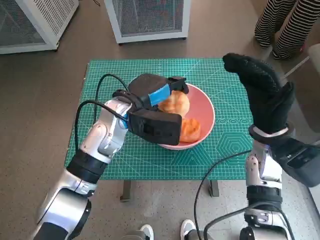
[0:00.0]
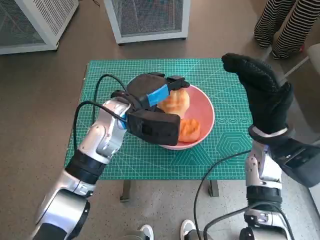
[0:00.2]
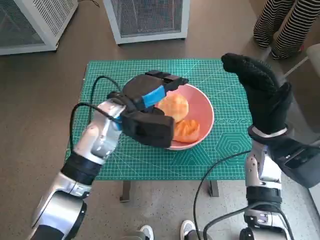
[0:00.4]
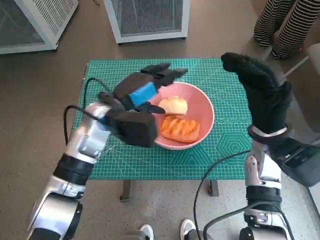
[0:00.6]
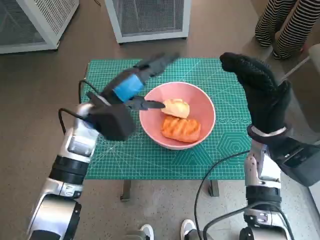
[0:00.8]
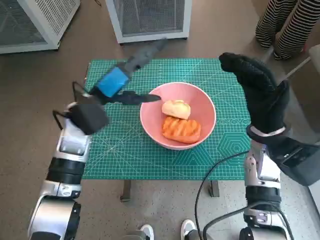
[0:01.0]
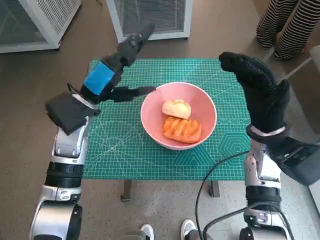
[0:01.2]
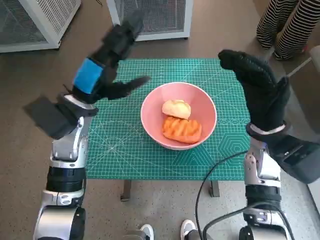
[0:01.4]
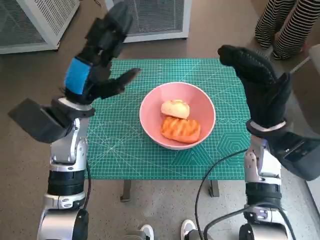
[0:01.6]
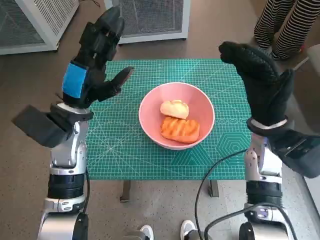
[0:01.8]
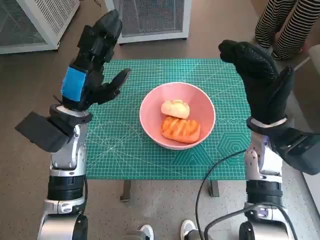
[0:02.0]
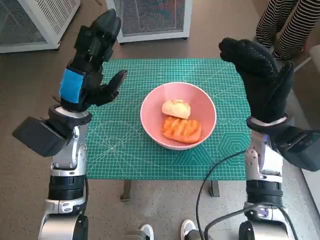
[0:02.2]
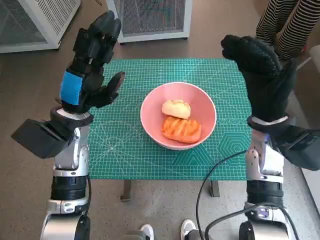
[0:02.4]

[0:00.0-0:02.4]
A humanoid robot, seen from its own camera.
Task of the whole recording: Push the bowl into the center of the table and put the bread into the bowl.
0:00.0 to 0:01.2: The left hand moves to the left, some 10 cm.

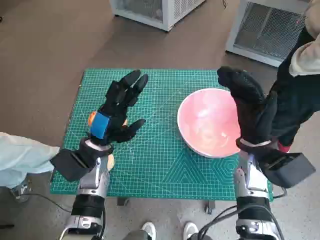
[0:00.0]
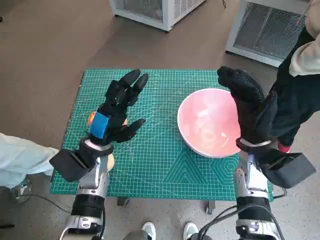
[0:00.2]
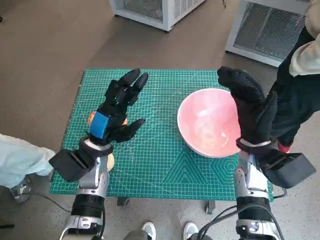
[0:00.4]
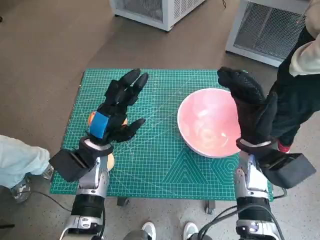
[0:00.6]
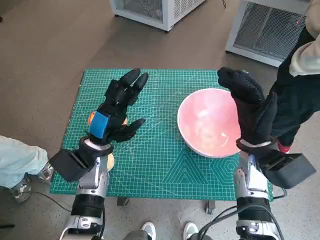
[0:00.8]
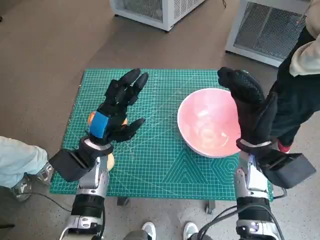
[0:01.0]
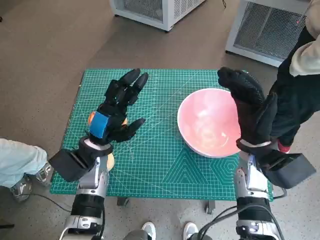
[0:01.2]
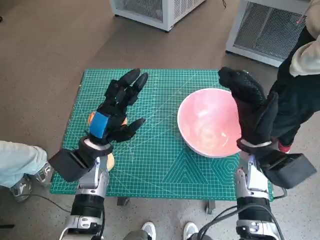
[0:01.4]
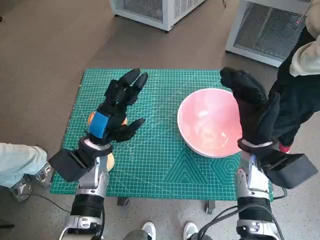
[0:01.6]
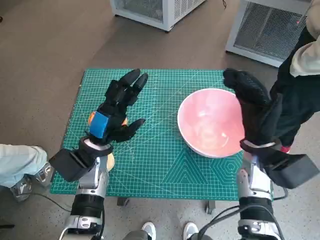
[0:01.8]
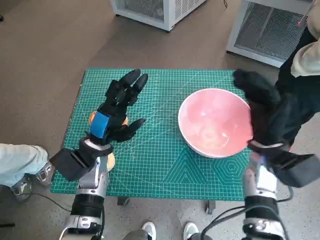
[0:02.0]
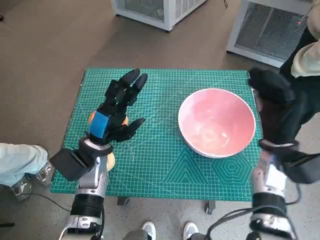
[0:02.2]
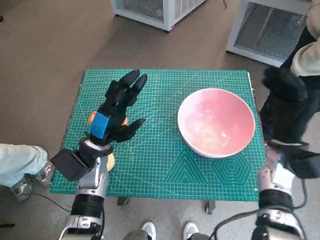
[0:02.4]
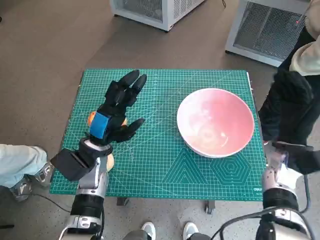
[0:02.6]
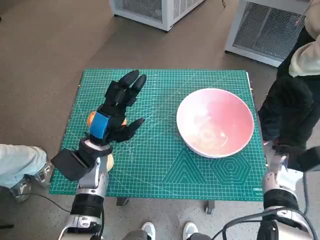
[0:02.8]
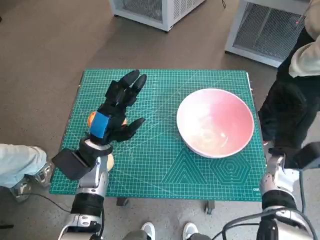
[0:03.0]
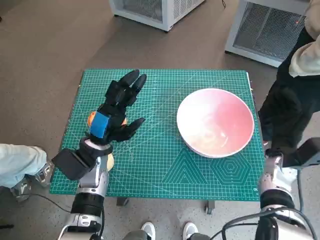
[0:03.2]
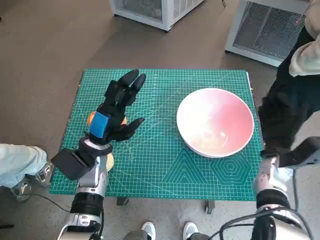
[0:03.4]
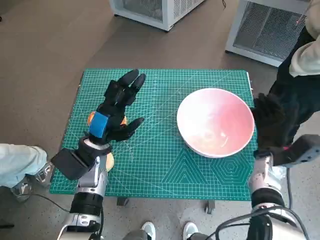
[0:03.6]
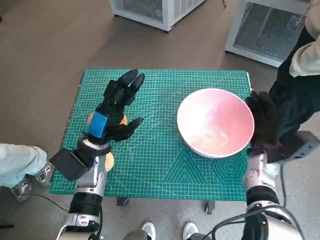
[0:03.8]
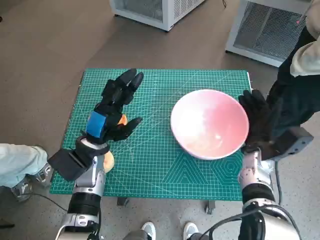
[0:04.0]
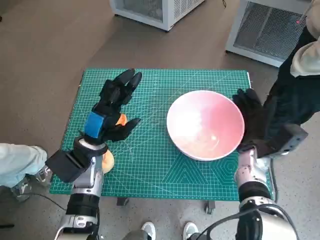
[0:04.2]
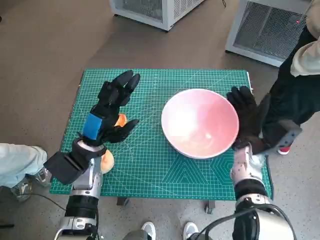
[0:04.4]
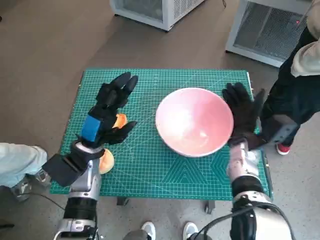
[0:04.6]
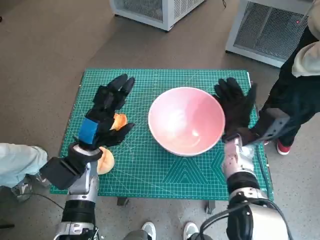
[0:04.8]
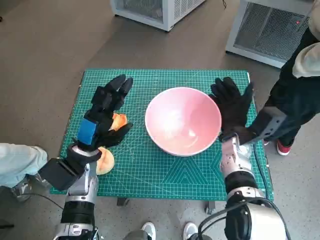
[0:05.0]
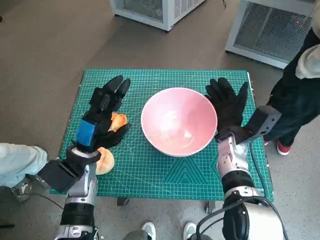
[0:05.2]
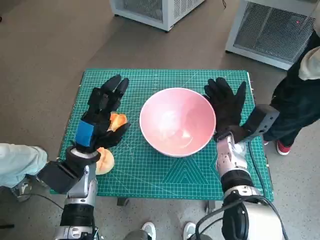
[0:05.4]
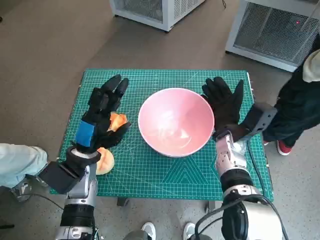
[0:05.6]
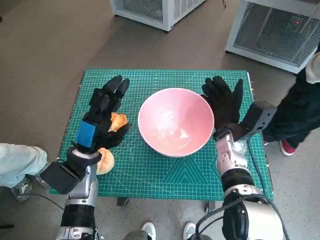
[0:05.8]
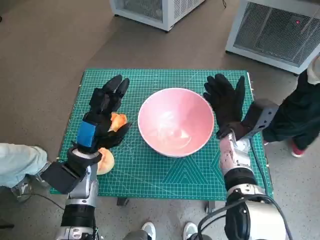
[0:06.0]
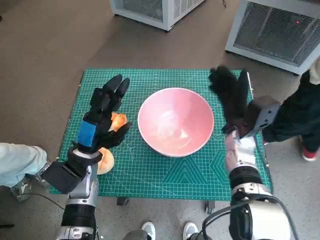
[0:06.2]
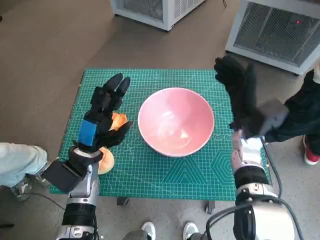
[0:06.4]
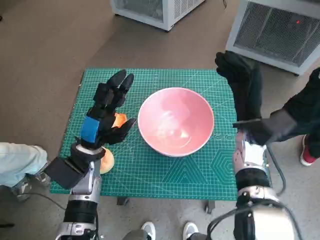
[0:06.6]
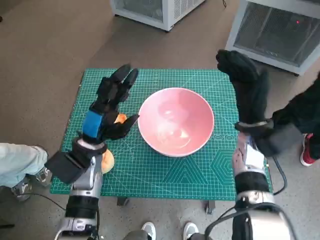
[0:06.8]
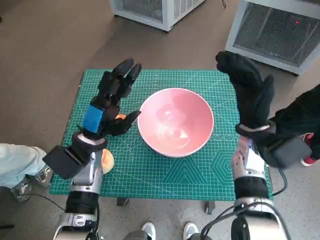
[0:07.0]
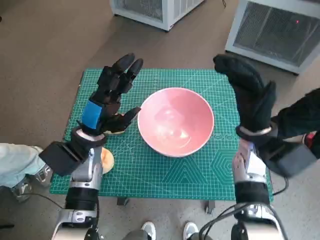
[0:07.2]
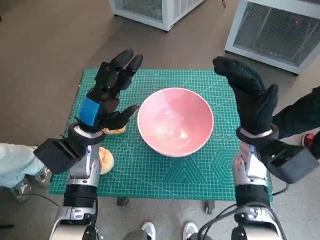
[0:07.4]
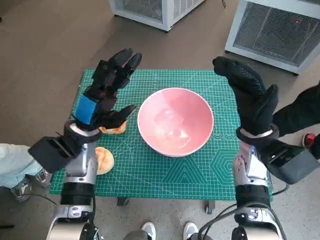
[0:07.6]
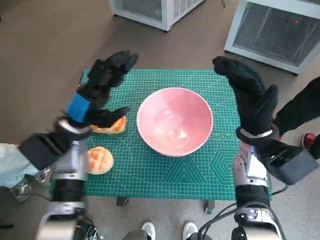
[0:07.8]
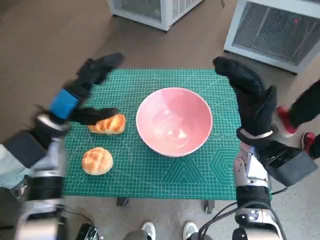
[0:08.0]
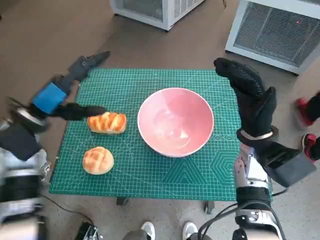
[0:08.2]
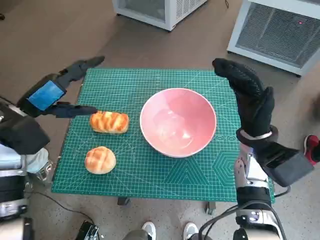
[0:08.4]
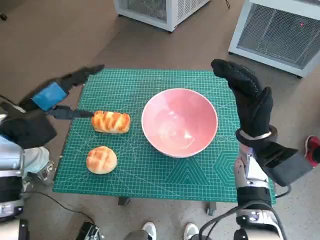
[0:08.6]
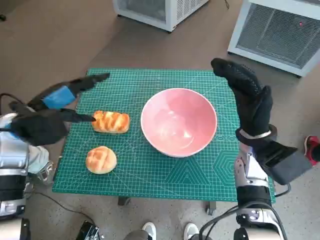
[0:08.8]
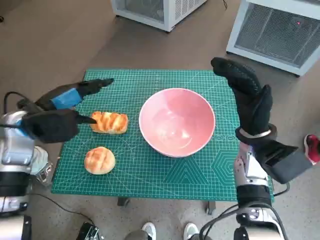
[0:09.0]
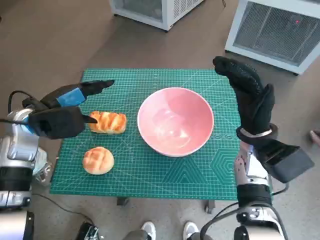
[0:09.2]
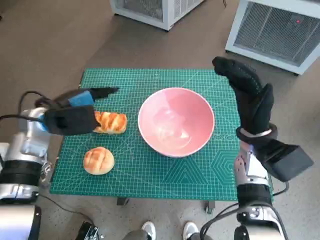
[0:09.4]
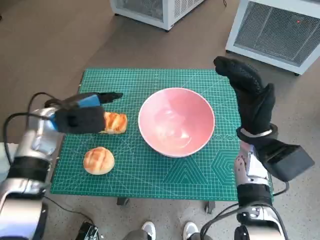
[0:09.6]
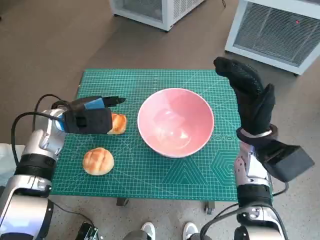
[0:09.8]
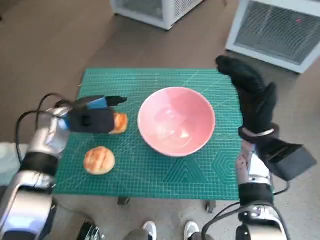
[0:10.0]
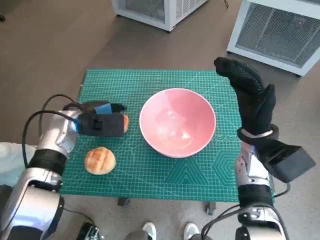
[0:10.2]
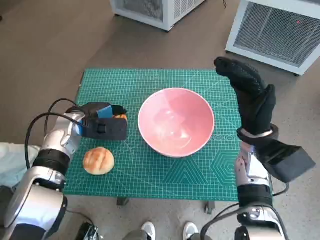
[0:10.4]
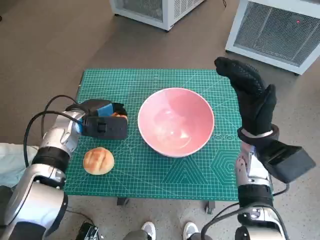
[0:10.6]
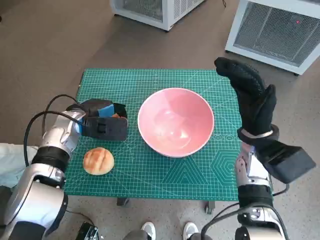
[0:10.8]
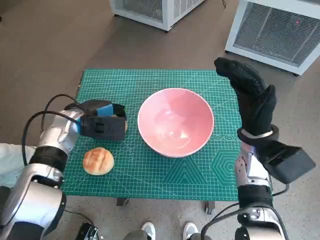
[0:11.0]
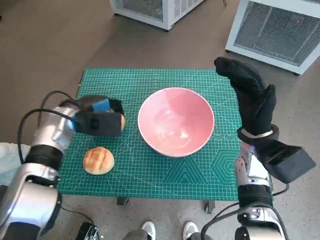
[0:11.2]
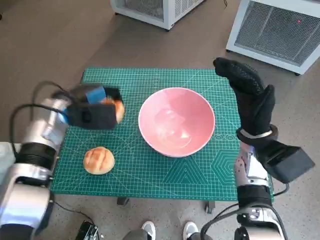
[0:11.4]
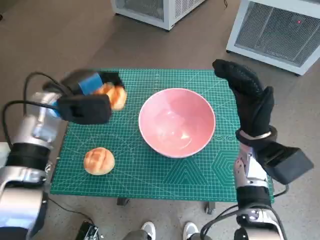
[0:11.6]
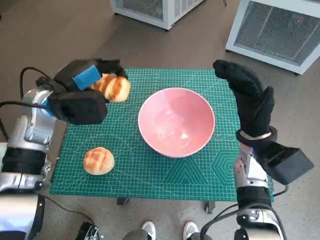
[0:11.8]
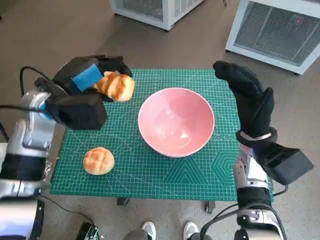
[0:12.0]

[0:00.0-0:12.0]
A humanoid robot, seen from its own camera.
Task of the whole recording: Push the bowl into the center of the table and put the bread into the bowl.
Step, 0:00.0 to 0:06.0: Move the pink bowl to the center of table with right hand.
Step, 0:06.2 to 0:10.4: Grasp the long bread with left hand.
0:01.6 to 0:03.0: The right hand moves to the right and downward, some 10 cm.
0:03.0 to 0:04.4: The right hand shifts about 5 cm to the left.
0:04.4 to 0:06.0: The right hand moves about 5 cm.
0:06.0 to 0:07.6: The right hand travels upward by roughly 5 cm; the left hand shifts by roughly 5 cm.
0:07.6 to 0:09.0: The left hand heads to the left and upward, covering approximately 10 cm.
0:09.0 to 0:10.4: The left hand is displaced downward and to the right by some 10 cm.
0:10.4 to 0:12.0: The left hand goes about 10 cm upward.

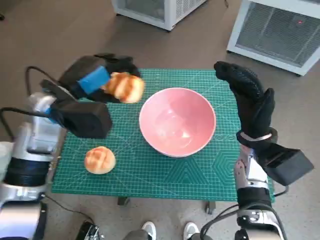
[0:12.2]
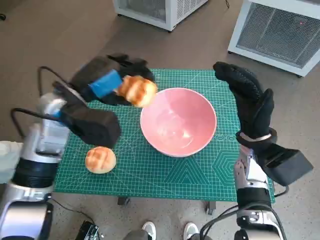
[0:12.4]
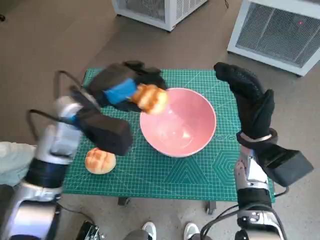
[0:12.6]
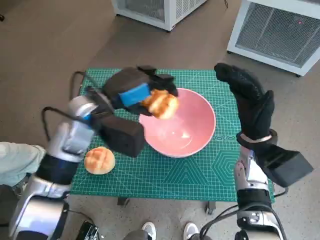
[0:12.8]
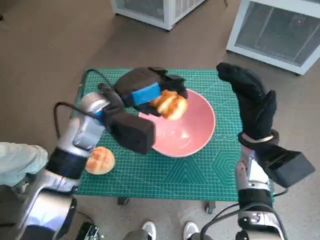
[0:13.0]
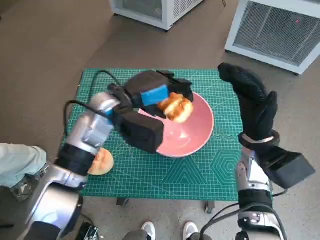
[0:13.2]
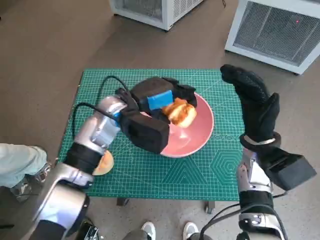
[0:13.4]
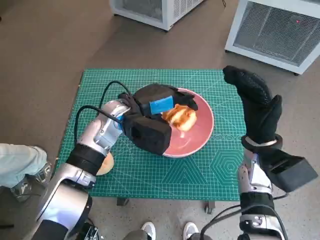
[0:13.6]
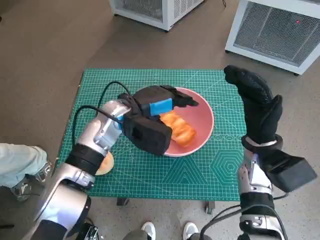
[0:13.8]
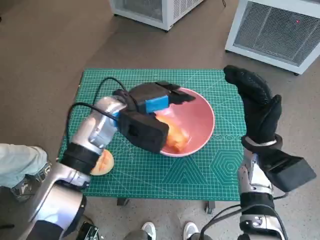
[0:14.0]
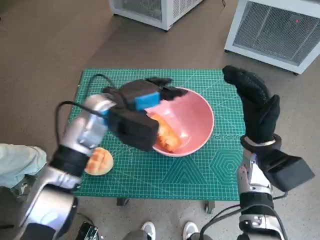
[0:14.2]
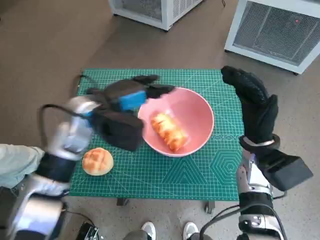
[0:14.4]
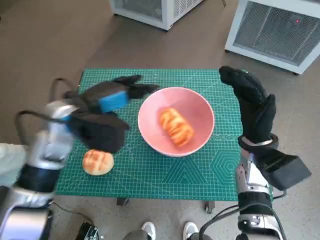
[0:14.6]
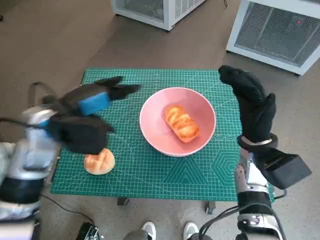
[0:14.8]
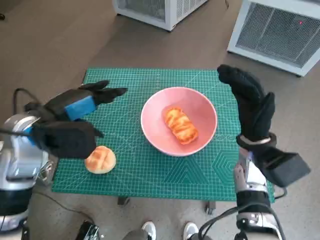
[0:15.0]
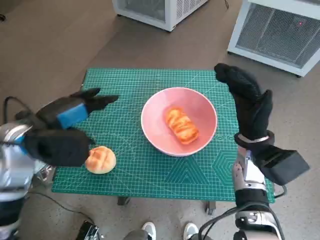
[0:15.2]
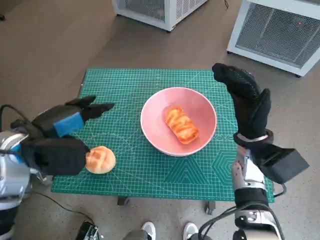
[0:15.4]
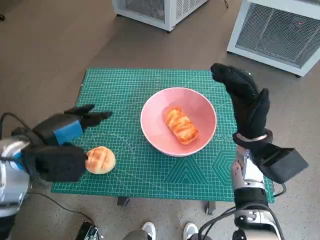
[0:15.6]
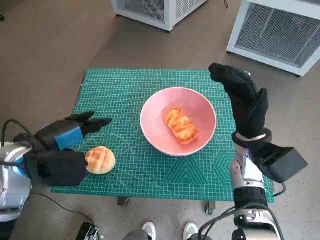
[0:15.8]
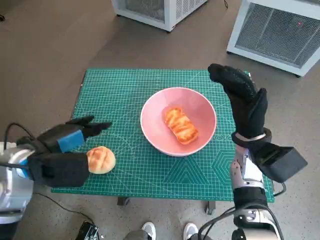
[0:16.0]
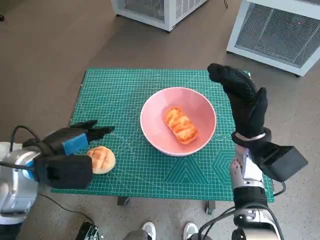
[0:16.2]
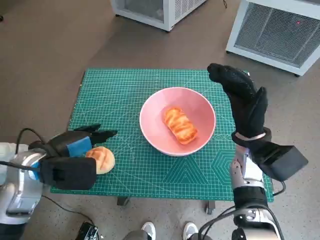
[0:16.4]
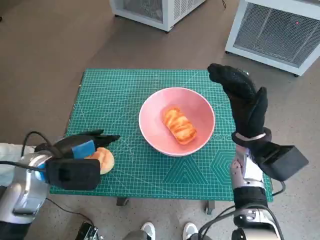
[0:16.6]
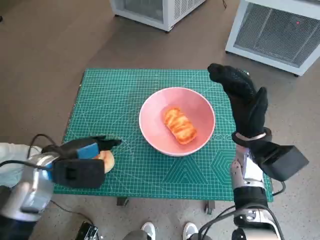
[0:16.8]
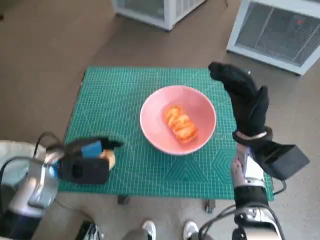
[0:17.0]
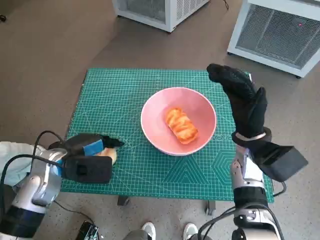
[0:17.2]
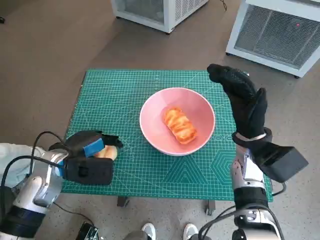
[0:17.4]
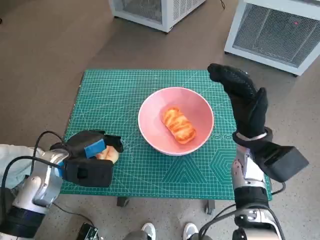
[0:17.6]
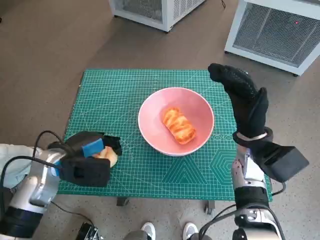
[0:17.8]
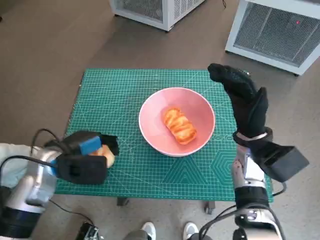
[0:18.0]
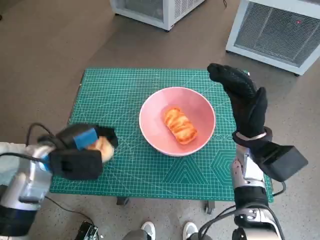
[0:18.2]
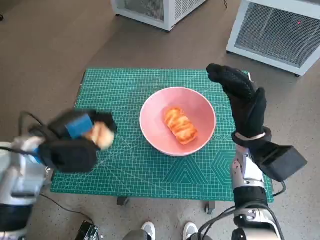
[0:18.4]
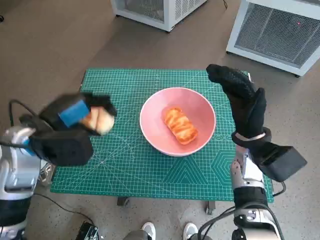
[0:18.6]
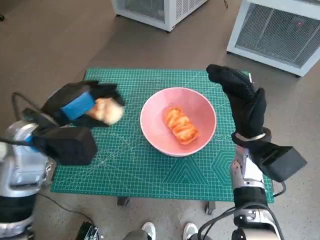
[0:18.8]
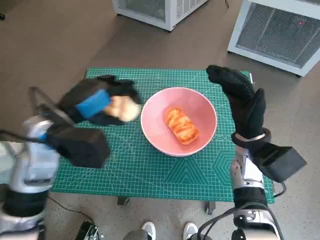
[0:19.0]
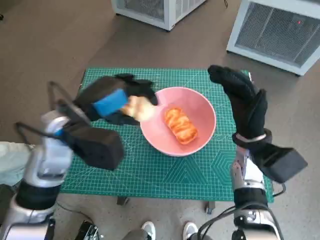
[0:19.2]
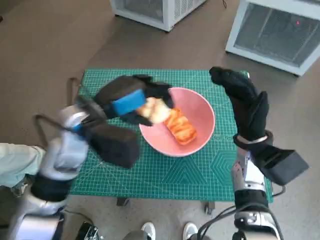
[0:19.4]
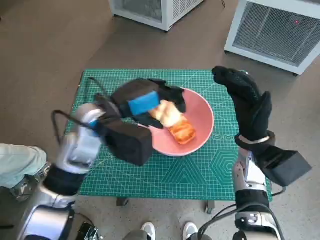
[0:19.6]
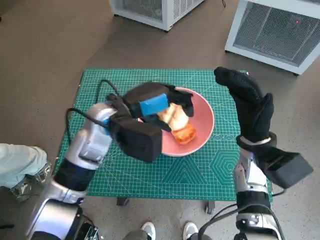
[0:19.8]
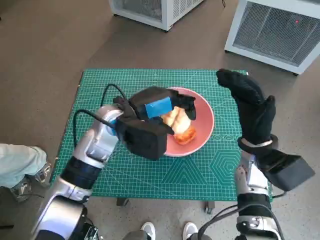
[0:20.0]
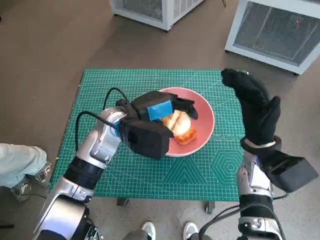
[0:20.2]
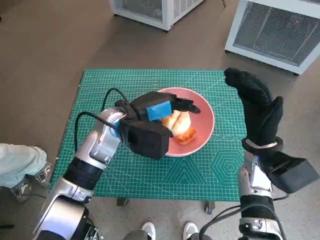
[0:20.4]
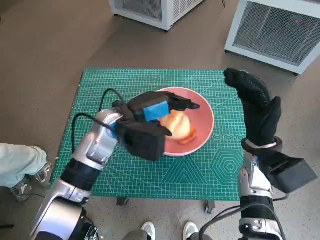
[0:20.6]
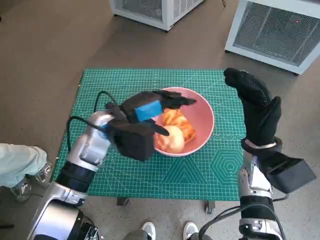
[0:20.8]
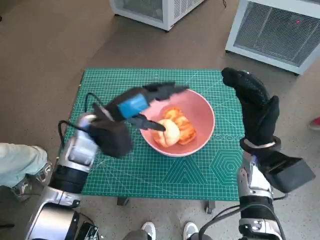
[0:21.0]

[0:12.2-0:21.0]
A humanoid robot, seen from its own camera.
Task of the whole recording: Push the bowl into the center of the table and put the bread into the bowl.
Step, 0:12.2 to 0:14.4: Place the long bread in pink bowl with left hand.
Step, 0:14.6 to 0:17.4: Grasp the round bread with left hand.
0:12.2 to 0:13.6: The left hand heads to the right and downward, covering approximately 10 cm.
0:13.6 to 0:15.2: The left hand goes roughly 15 cm to the left and backward.
0:15.2 to 0:16.6: The left hand travels downward by some 5 cm.
0:16.6 to 0:18.0: The hands move only a little.
0:18.0 to 0:19.6: The left hand goes about 15 cm to the right and upward.
0:19.6 to 0:21.0: The left hand moves about 5 cm.
